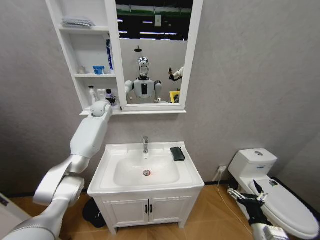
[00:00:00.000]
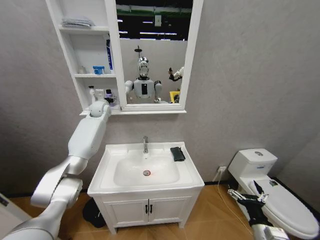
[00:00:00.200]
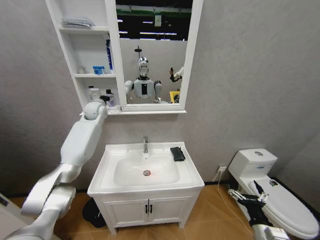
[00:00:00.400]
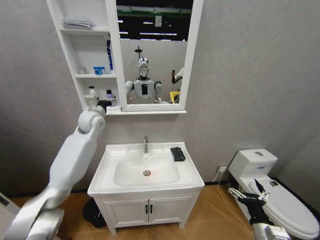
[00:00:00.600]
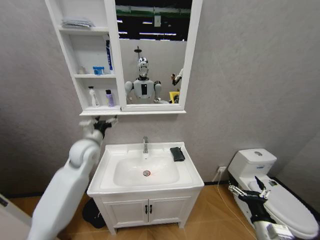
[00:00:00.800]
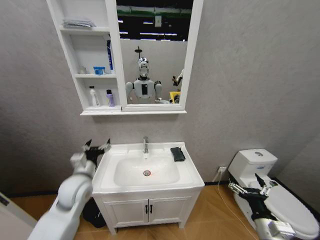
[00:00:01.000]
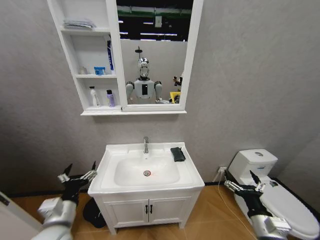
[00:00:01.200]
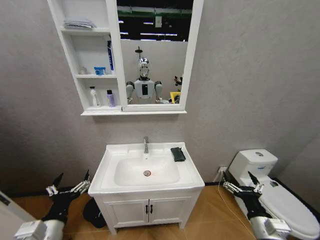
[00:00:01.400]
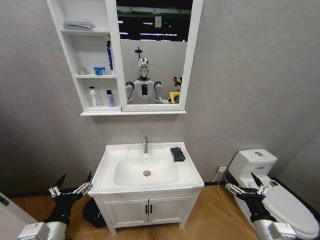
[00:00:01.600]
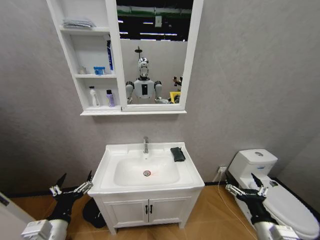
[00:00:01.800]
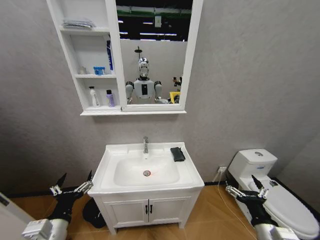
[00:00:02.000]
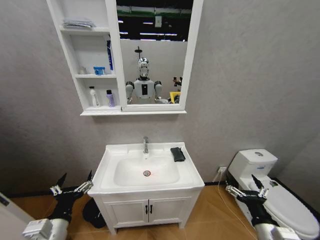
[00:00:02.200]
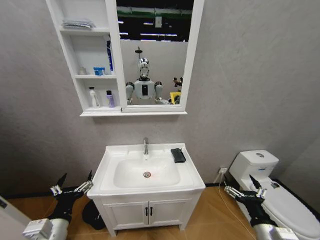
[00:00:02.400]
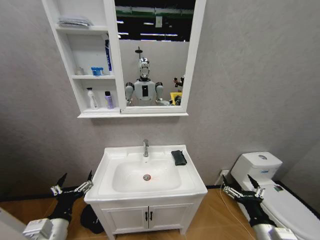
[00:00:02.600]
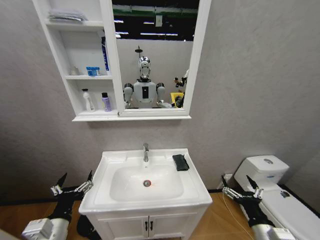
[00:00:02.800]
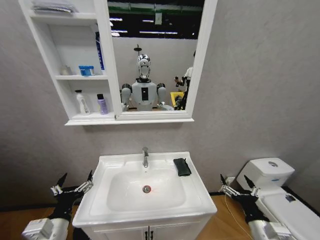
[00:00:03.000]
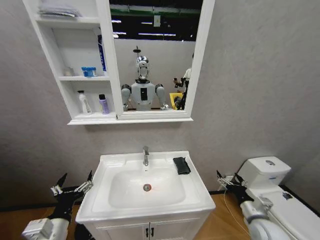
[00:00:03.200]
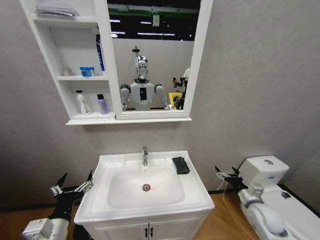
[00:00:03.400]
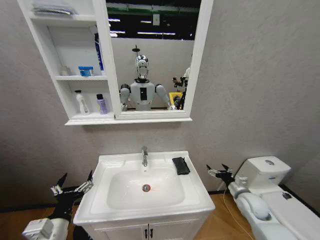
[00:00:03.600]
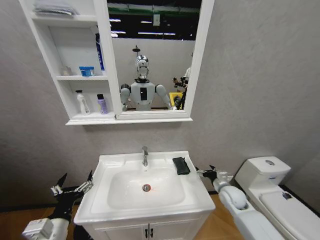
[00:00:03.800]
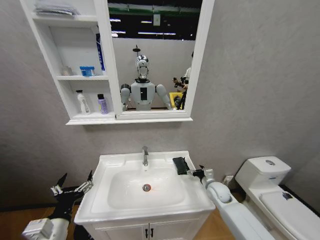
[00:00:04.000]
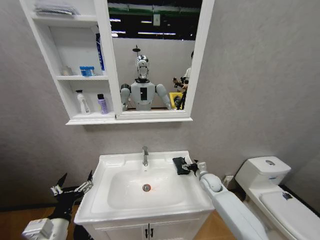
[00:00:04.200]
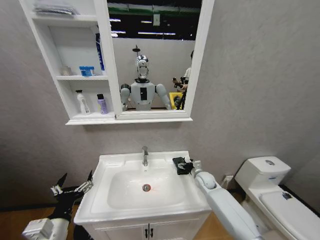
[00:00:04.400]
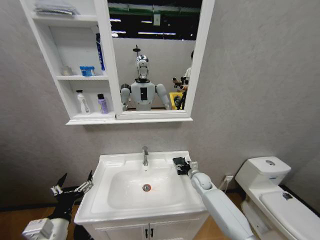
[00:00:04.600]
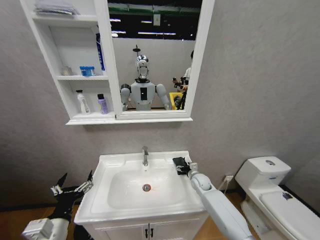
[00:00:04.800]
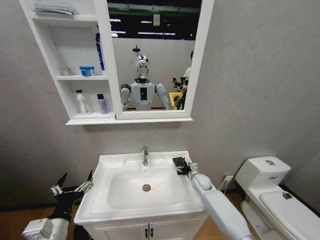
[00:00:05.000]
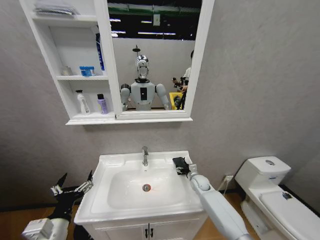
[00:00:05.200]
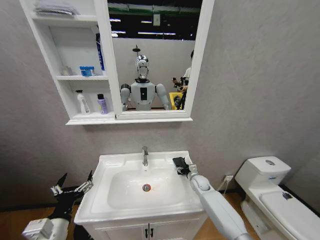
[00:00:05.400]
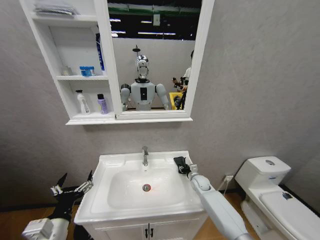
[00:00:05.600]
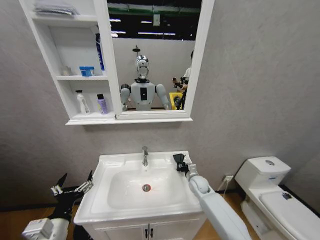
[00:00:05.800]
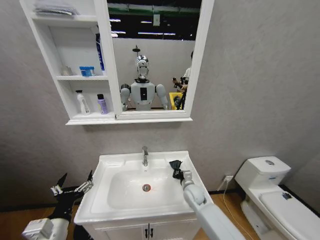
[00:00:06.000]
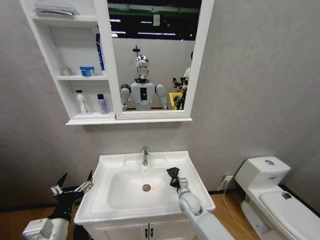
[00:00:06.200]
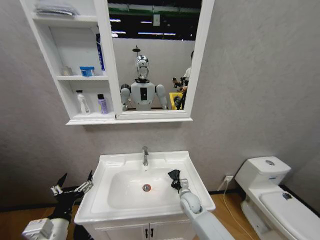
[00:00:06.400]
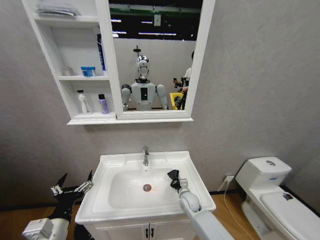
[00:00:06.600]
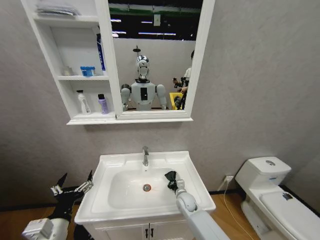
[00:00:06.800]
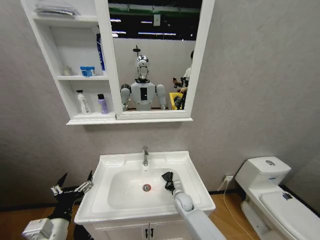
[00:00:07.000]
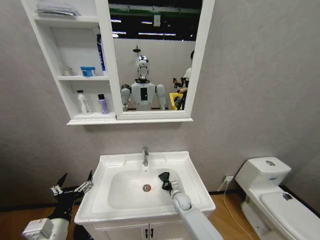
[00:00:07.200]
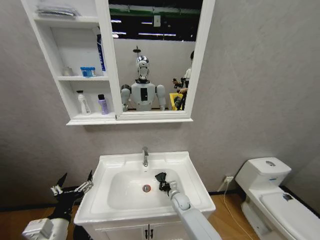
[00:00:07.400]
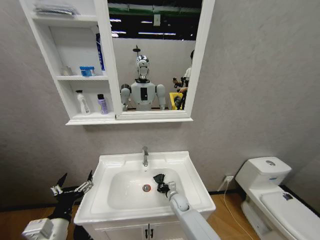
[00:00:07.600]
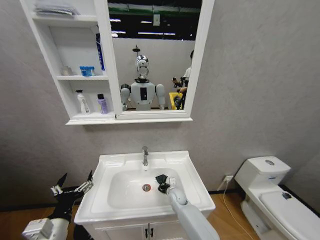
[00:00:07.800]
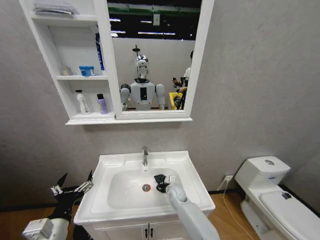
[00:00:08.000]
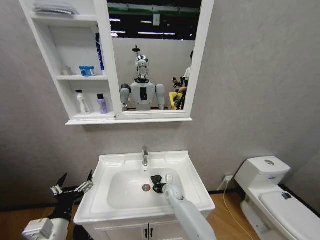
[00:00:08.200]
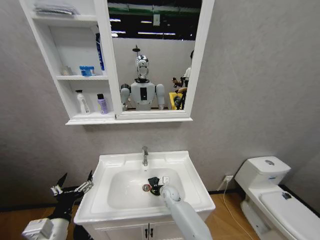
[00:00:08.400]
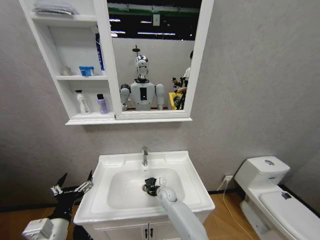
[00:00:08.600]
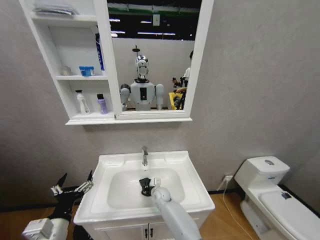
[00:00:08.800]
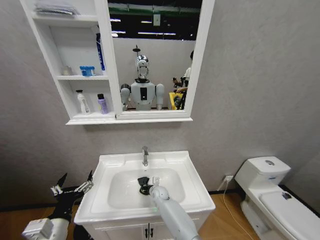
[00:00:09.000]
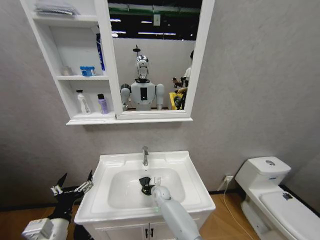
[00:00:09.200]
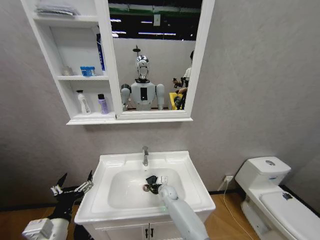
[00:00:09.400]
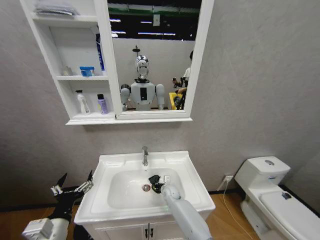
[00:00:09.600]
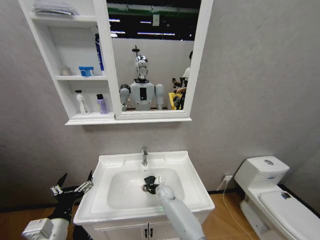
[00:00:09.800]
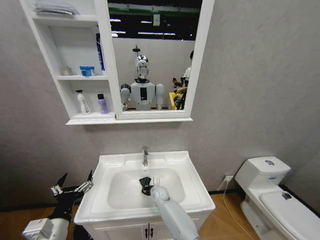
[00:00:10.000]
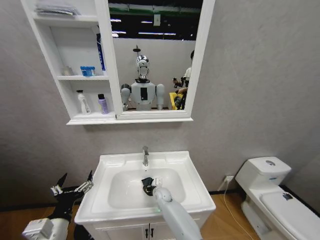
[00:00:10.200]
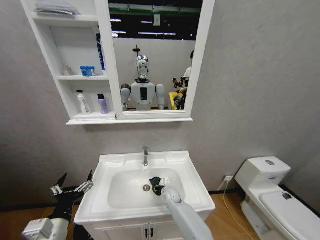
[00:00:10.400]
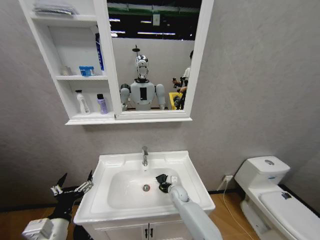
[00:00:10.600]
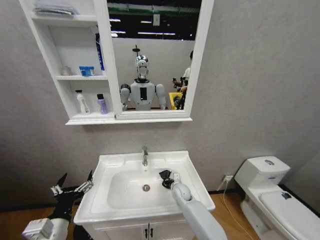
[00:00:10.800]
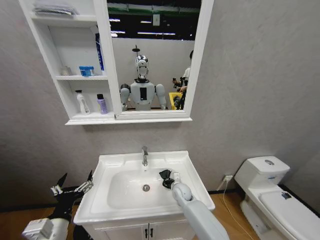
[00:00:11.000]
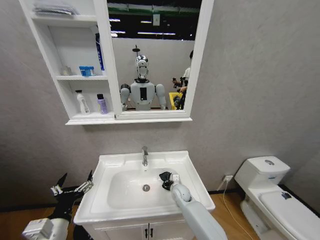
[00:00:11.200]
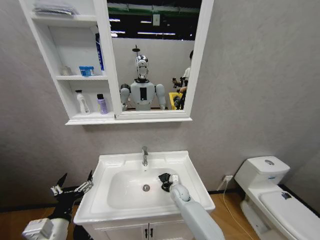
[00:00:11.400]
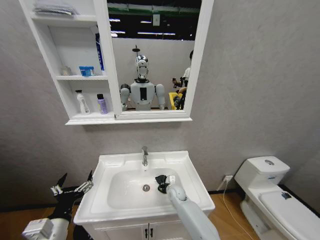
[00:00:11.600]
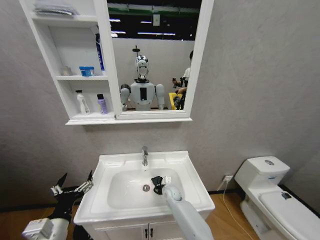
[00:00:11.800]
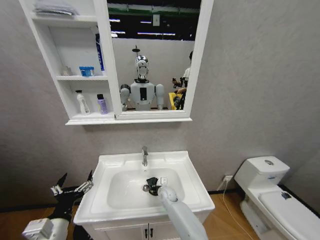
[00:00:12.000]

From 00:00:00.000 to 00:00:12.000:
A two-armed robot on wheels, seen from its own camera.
Task of the whole recording: Move facial cleanser and shampoo from washbasin to cabinet, then wipe washbasin with towel.
From 00:00:00.000 to 00:00:01.600: The right gripper travels upward by approximately 5 cm, while the left gripper heads backward and downward, covering about 50 cm, and opens.
From 00:00:03.000 to 00:00:04.400: The right gripper travels forward by roughly 30 cm.
From 00:00:04.400 to 00:00:06.000: The right gripper shifts roughly 10 cm to the left and backward, and closes.
From 00:00:06.000 to 00:00:07.600: The right gripper is displaced downward and to the left by about 10 cm.
From 00:00:07.600 to 00:00:09.000: The right gripper shifts roughly 10 cm to the left.
From 00:00:09.000 to 00:00:10.400: The right gripper moves left and right over approximately 5 cm, changing direction 2 times.

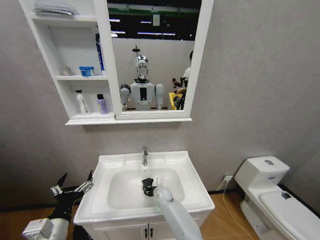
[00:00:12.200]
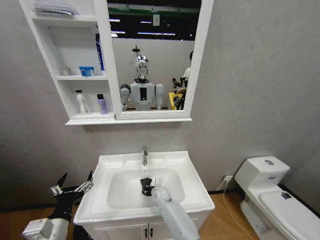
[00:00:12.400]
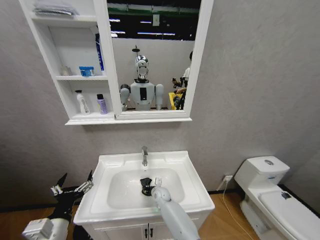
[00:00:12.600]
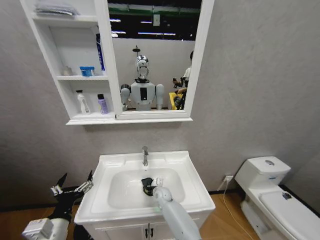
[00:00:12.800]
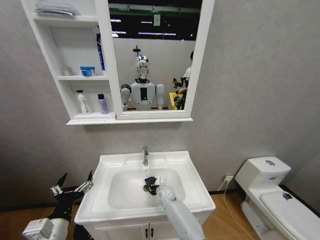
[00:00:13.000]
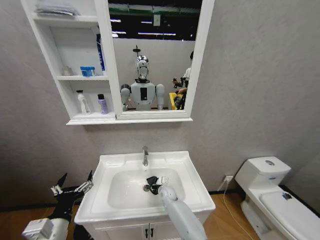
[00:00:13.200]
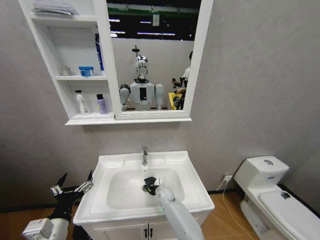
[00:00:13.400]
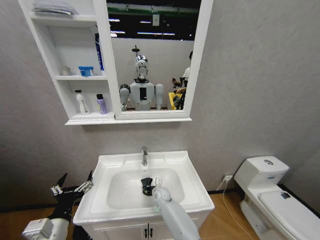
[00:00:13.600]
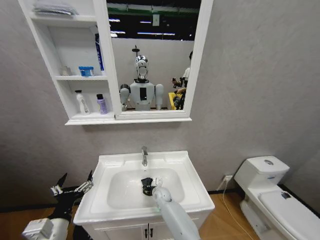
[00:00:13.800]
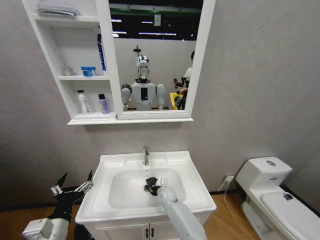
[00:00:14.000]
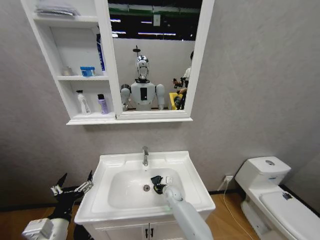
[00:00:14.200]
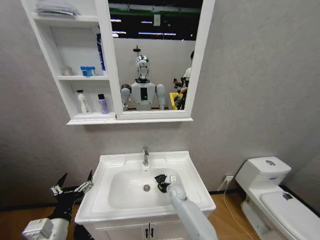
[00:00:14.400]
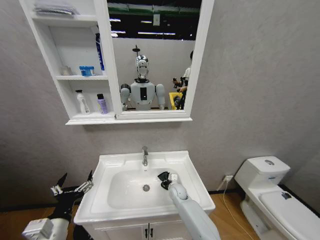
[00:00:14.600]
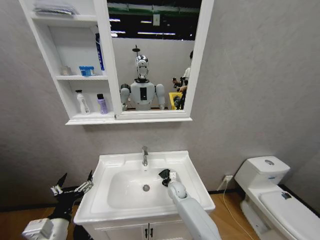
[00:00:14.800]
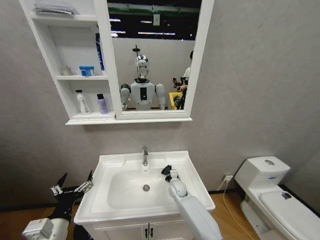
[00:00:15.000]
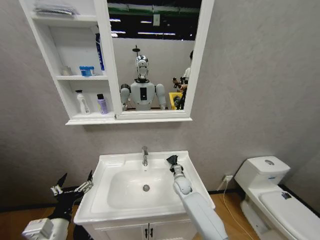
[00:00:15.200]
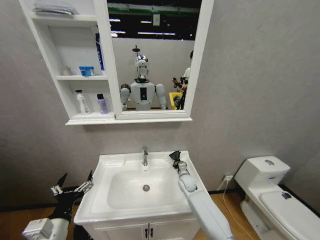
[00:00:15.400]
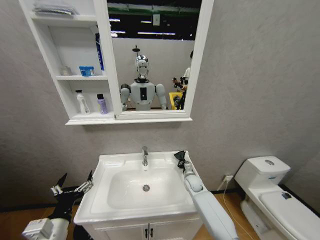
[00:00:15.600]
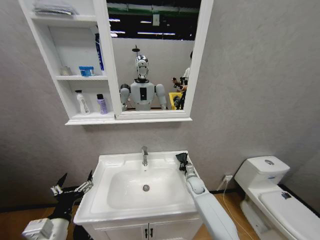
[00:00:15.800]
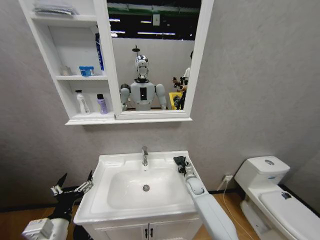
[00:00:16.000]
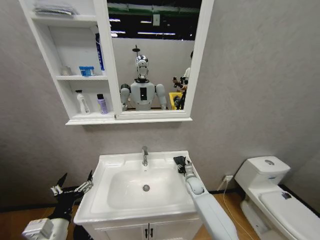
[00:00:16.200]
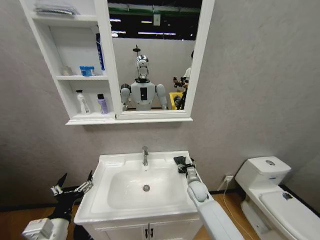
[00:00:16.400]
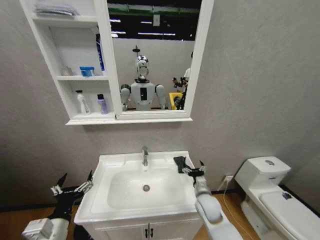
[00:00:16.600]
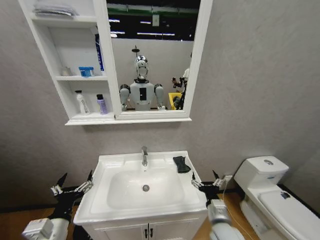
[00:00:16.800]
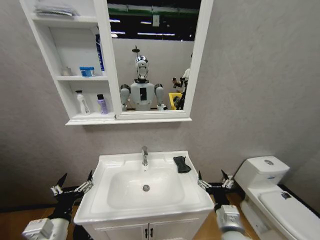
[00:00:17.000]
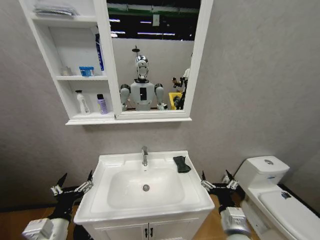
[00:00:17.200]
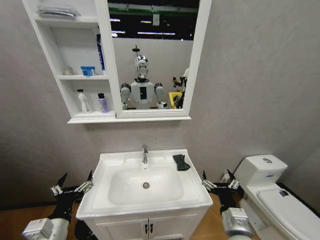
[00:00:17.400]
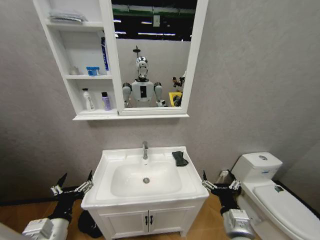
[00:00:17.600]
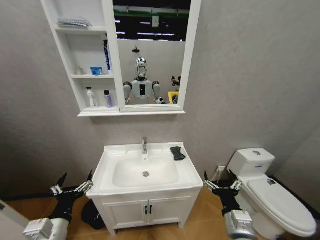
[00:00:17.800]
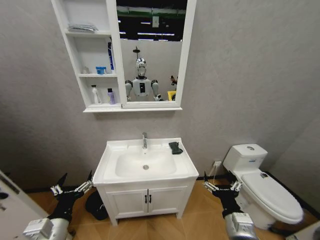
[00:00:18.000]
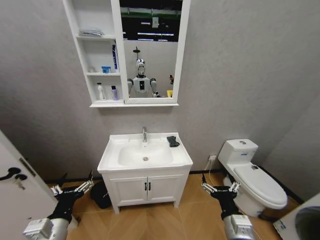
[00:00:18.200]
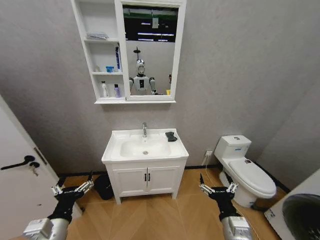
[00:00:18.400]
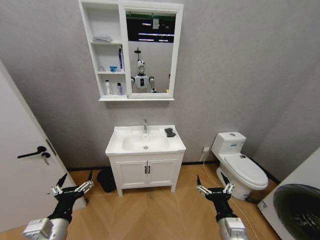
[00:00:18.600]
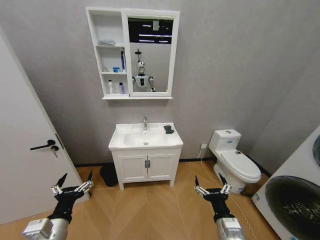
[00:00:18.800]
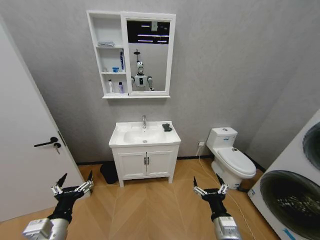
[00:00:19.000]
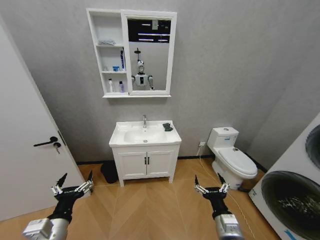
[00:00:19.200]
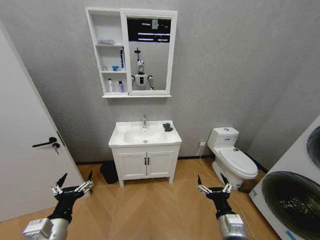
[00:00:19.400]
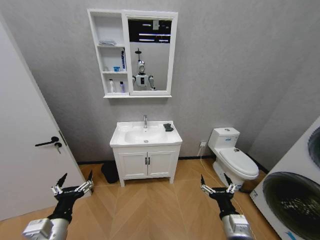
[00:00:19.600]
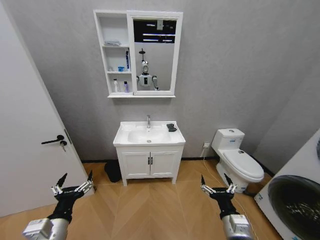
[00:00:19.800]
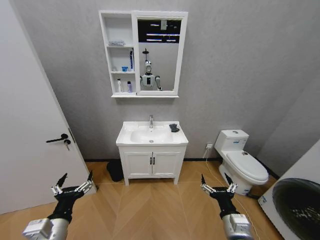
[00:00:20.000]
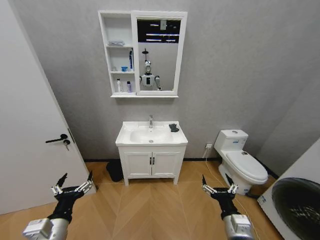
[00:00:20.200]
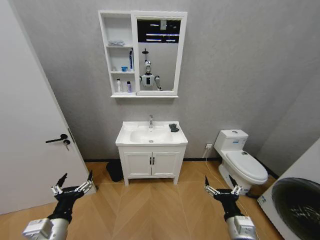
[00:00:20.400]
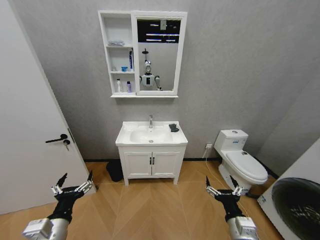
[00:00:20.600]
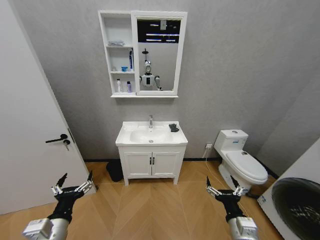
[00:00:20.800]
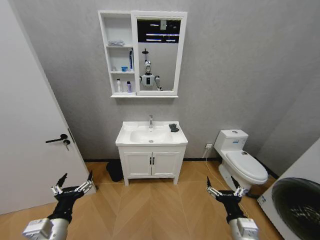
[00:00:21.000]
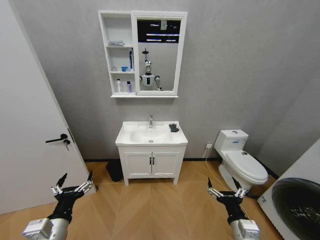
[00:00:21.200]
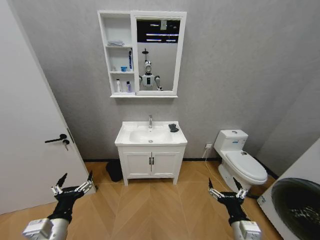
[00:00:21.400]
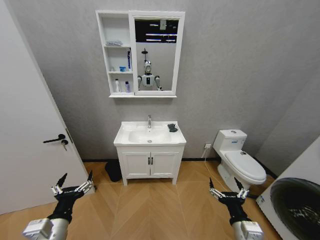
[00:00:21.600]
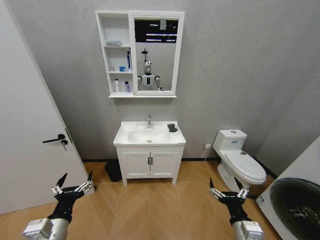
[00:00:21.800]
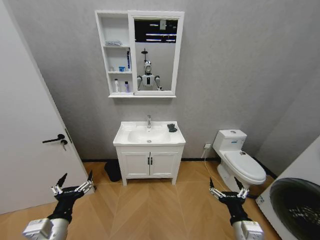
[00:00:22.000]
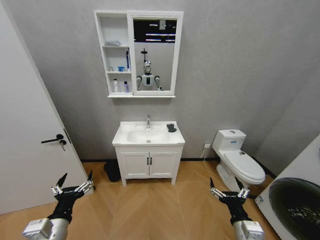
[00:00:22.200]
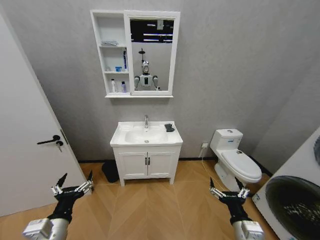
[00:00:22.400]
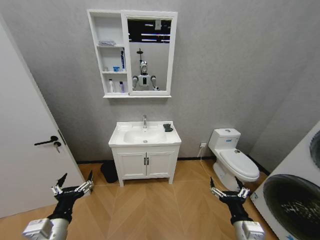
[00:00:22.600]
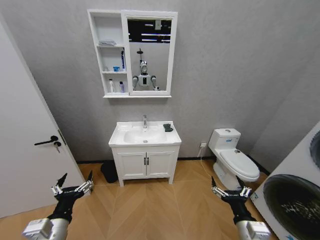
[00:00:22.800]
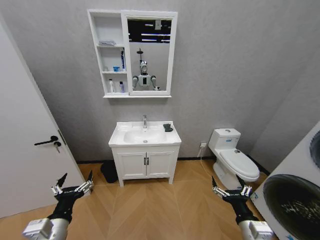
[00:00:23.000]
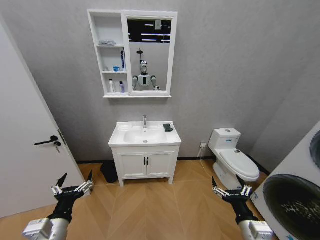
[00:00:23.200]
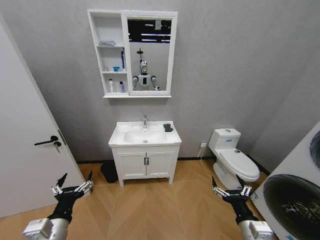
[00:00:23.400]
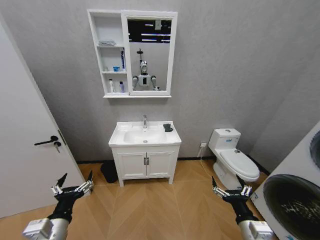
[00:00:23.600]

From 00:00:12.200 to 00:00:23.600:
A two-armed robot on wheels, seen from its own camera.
Task of the whole recording: Move facial cleanser and shampoo from washbasin to cabinet, then wipe washbasin with towel.
From 00:00:13.600 to 00:00:15.000: The right gripper goes roughly 10 cm to the right.
From 00:00:15.000 to 00:00:16.400: The right gripper travels to the right by some 10 cm, and opens.
From 00:00:16.400 to 00:00:17.800: The right gripper is displaced backward and upward by about 25 cm.
From 00:00:19.400 to 00:00:20.800: The grippers move only a little.
From 00:00:20.800 to 00:00:22.200: Neither gripper changes place.
From 00:00:22.200 to 00:00:23.600: The grippers stay close to where they were, moving slightly.
